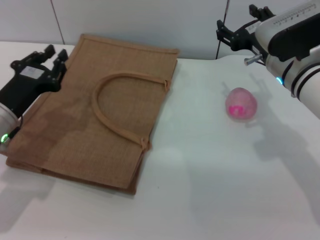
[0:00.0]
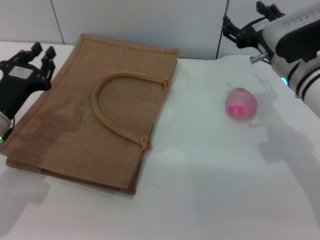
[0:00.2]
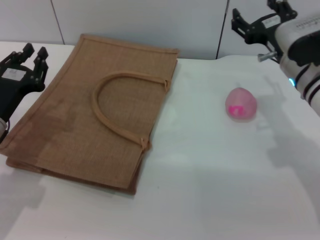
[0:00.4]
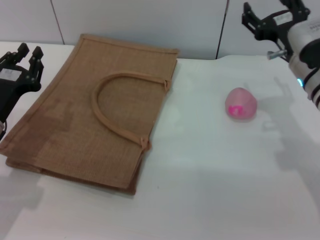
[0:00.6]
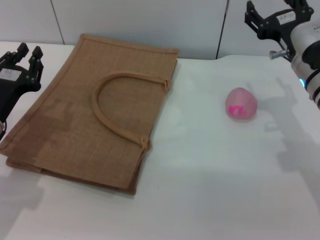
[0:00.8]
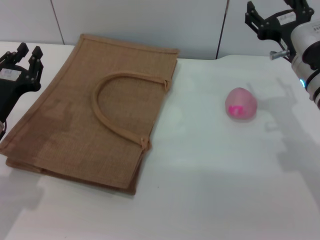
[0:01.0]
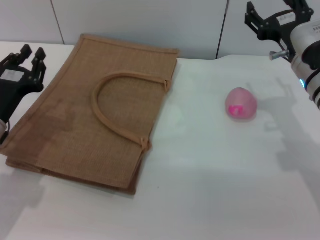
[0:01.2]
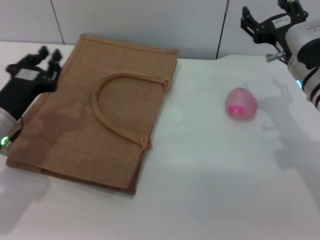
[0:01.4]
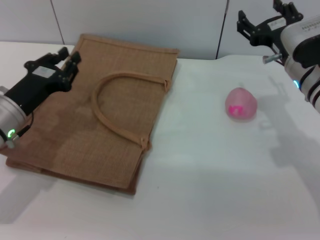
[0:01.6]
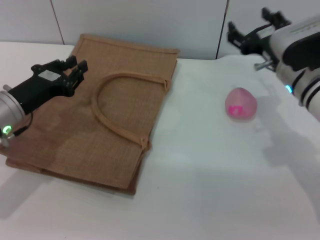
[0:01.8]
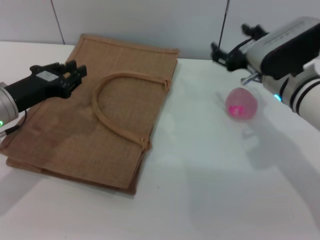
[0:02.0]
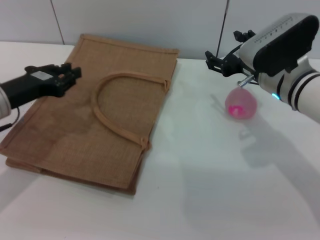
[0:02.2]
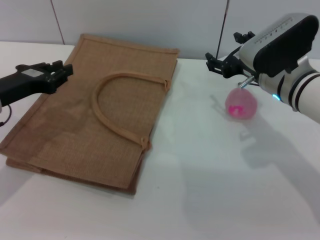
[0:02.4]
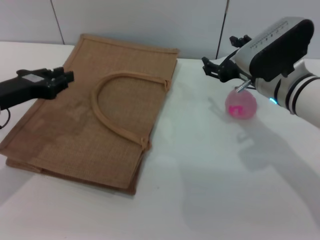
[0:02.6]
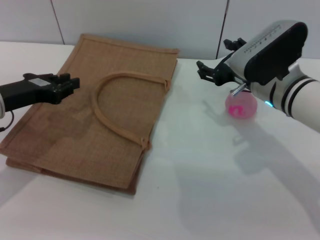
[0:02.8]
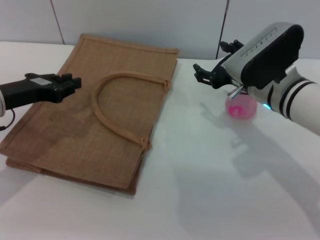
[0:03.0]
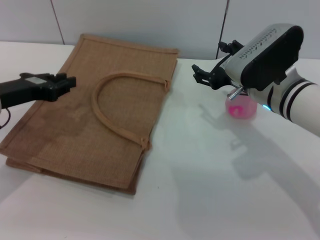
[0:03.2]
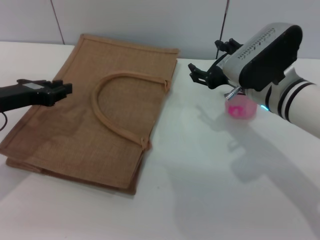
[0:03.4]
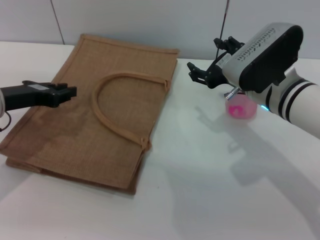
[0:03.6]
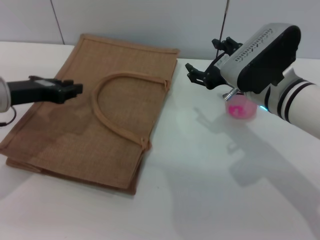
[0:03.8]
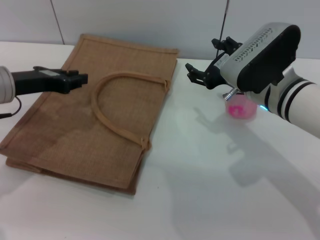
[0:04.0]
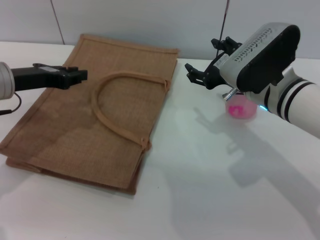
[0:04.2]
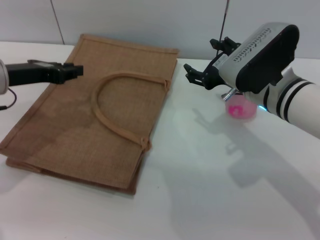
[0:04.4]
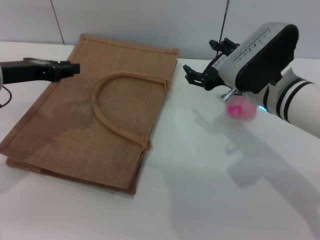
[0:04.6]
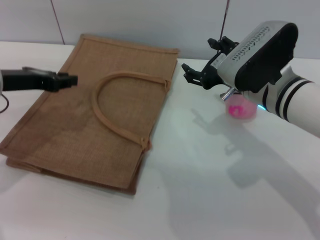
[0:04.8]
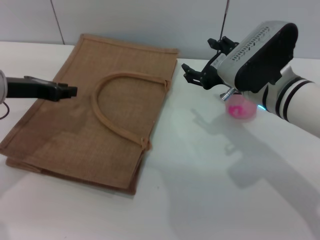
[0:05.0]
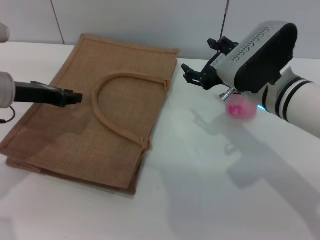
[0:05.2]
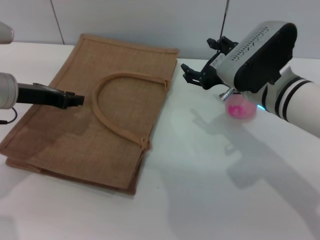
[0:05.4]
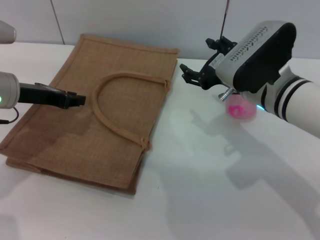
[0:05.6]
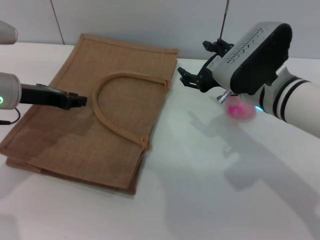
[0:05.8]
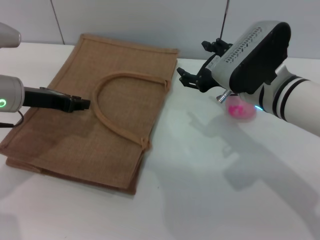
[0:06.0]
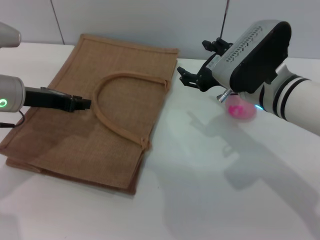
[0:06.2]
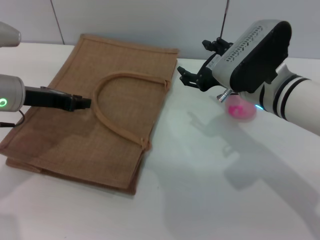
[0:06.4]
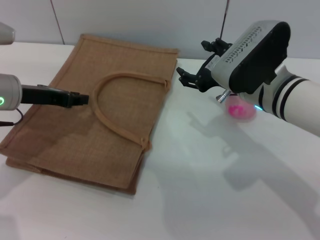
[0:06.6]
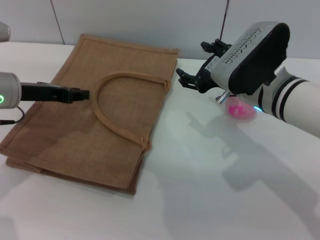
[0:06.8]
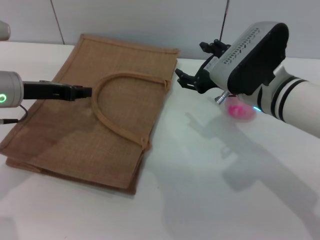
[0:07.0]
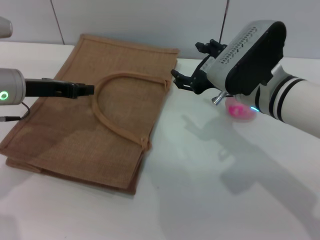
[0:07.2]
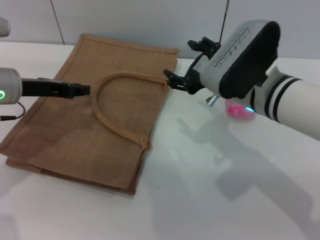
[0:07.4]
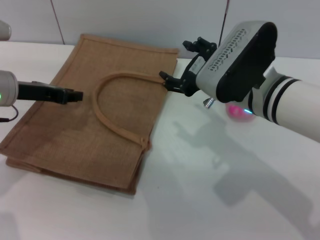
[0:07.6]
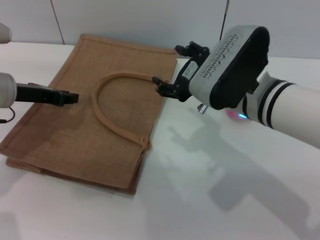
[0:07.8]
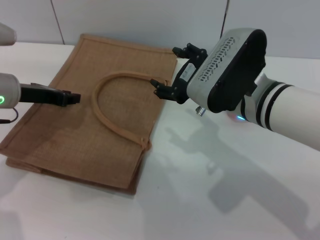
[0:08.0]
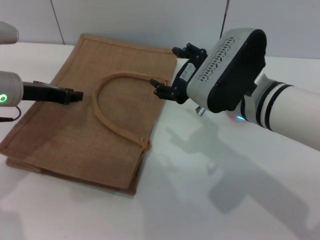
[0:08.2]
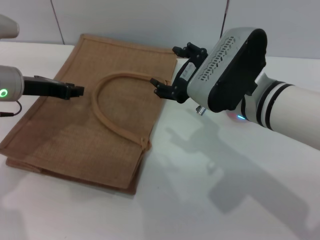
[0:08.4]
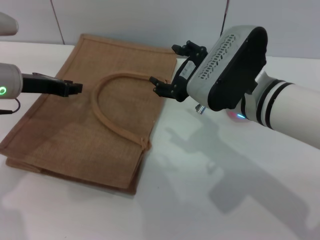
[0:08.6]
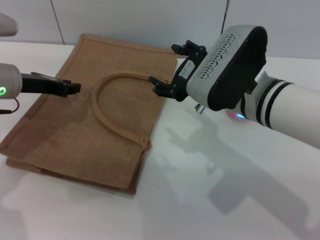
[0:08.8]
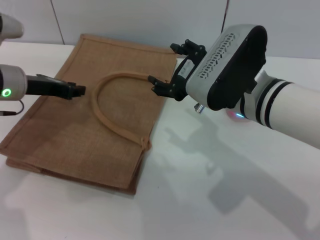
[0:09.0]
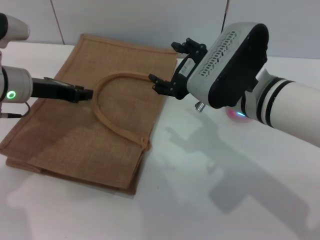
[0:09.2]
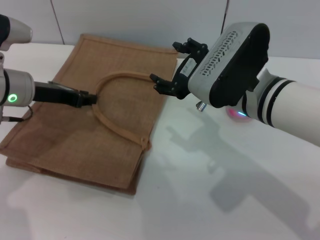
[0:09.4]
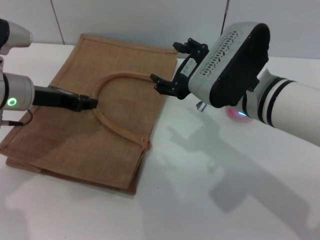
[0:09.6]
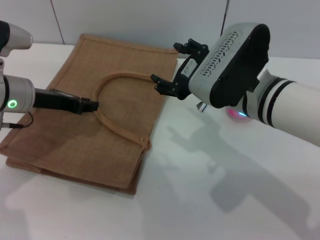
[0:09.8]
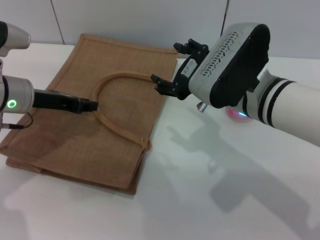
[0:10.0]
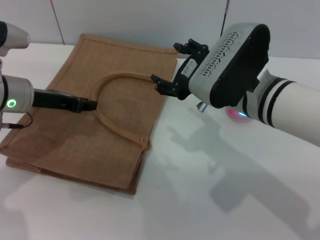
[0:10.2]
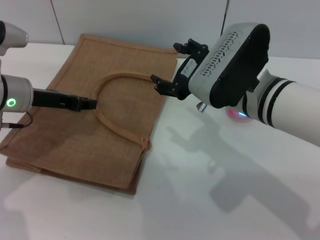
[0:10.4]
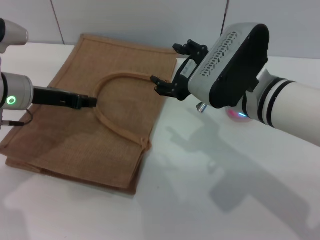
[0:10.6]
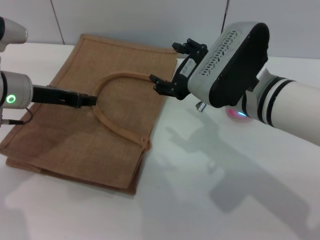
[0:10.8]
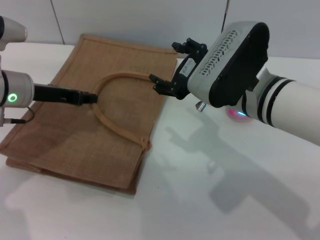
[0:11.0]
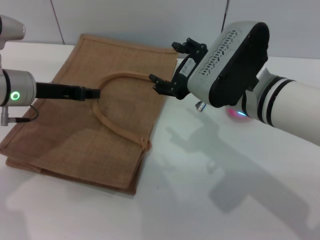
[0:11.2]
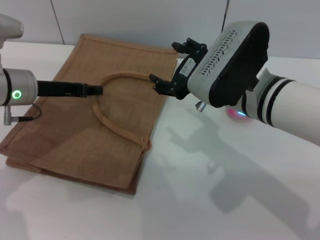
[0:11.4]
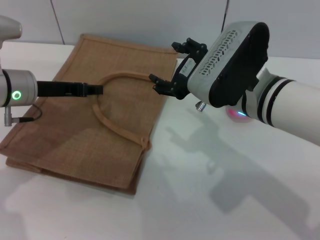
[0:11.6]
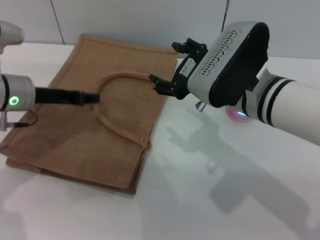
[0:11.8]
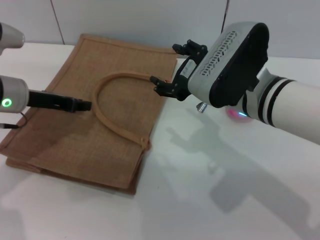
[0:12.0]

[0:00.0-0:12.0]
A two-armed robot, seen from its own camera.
Task of the whole recording: pick up the peach from the table and place it in the brown handbag.
0:00.0 to 0:01.6: The grippers move only a little.
0:01.6 to 0:03.0: The left gripper changes place by roughly 5 cm.
0:03.0 to 0:04.4: There are only small adjustments of the grippers.
0:04.4 to 0:12.0: There are only small adjustments of the grippers.

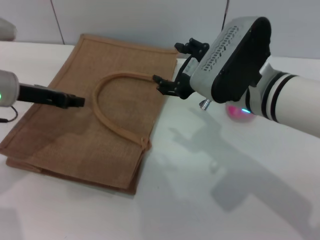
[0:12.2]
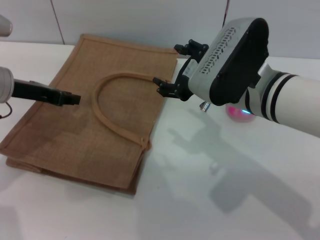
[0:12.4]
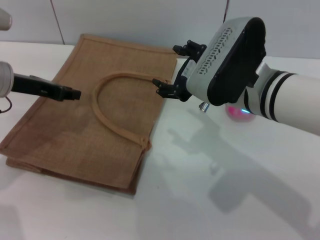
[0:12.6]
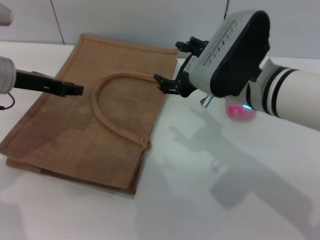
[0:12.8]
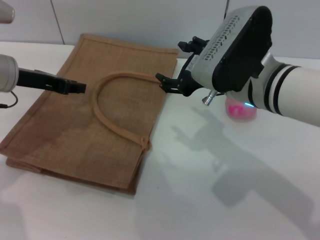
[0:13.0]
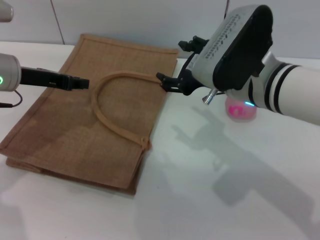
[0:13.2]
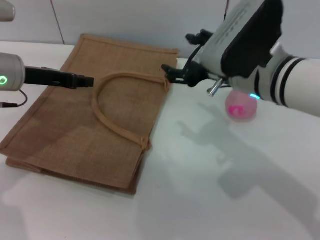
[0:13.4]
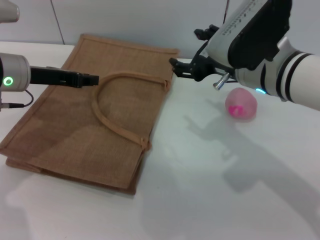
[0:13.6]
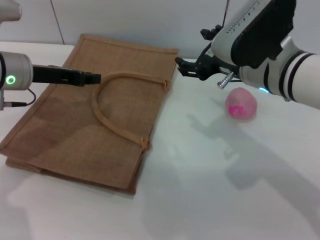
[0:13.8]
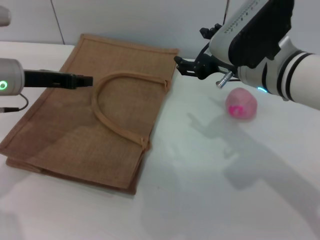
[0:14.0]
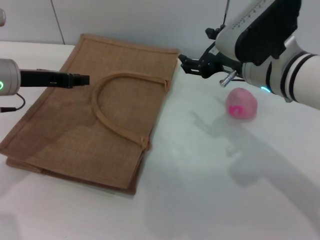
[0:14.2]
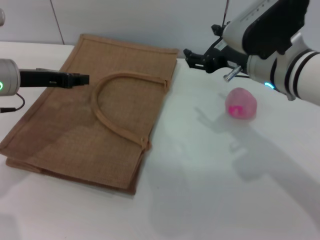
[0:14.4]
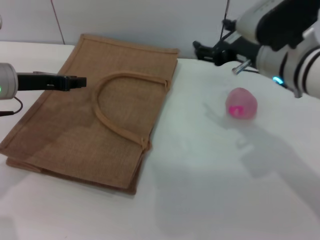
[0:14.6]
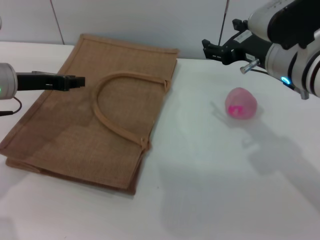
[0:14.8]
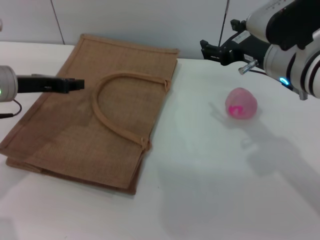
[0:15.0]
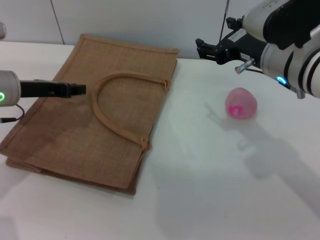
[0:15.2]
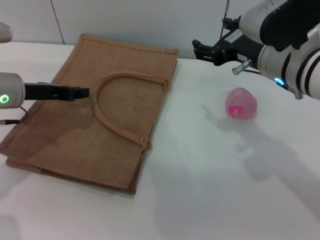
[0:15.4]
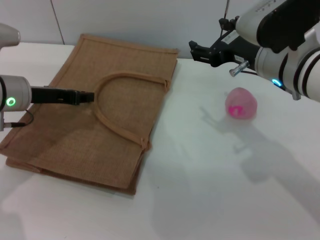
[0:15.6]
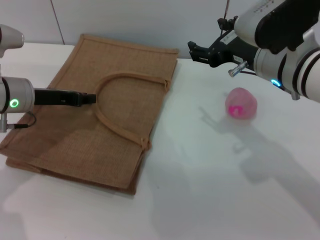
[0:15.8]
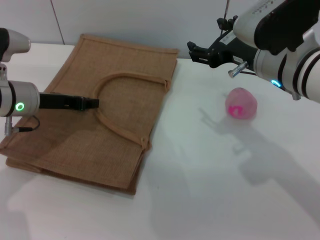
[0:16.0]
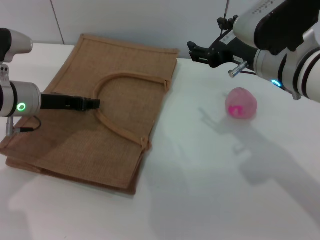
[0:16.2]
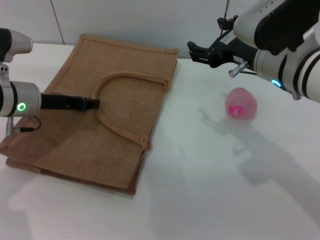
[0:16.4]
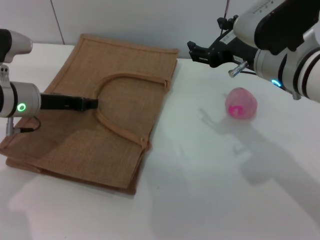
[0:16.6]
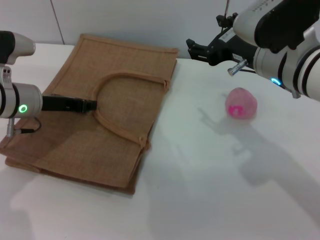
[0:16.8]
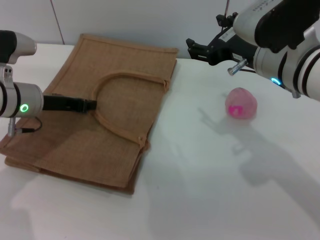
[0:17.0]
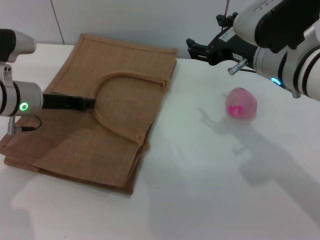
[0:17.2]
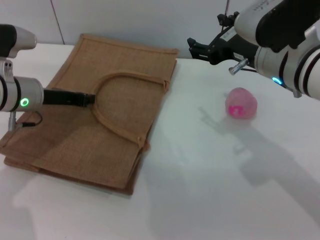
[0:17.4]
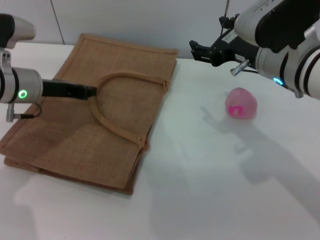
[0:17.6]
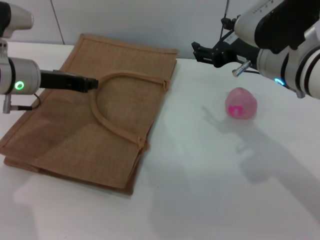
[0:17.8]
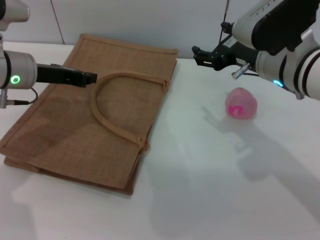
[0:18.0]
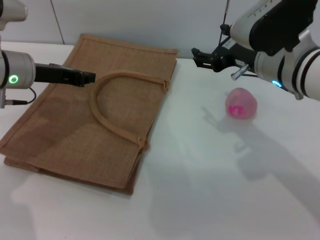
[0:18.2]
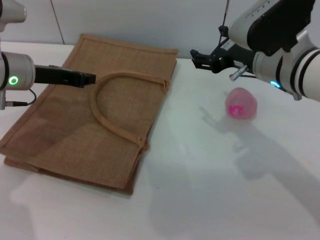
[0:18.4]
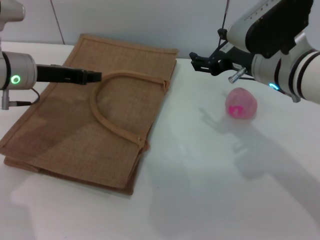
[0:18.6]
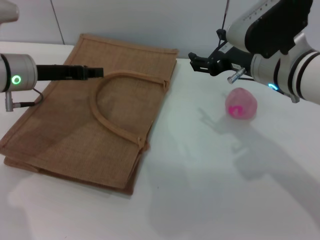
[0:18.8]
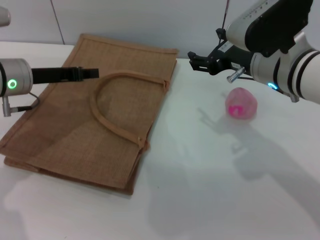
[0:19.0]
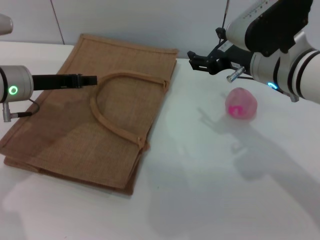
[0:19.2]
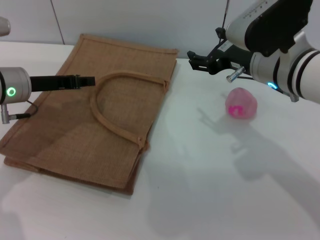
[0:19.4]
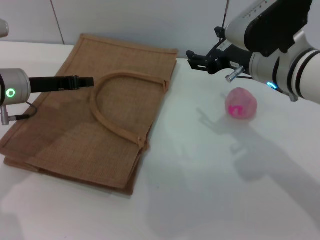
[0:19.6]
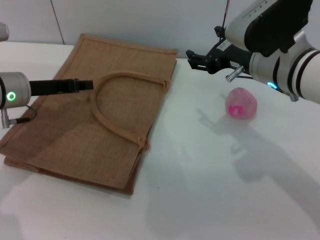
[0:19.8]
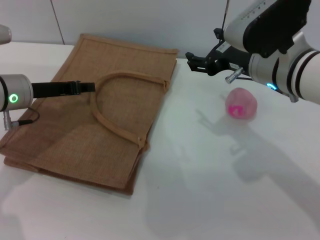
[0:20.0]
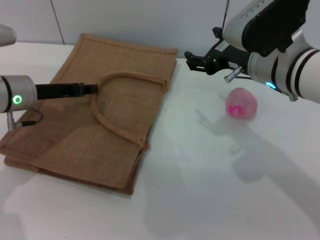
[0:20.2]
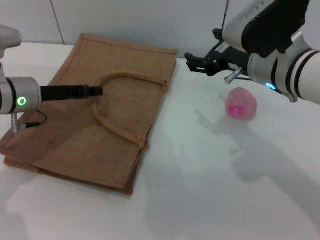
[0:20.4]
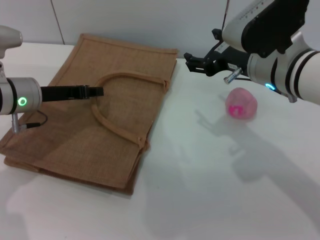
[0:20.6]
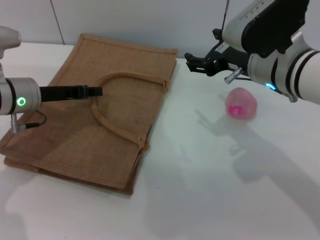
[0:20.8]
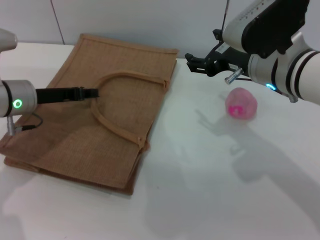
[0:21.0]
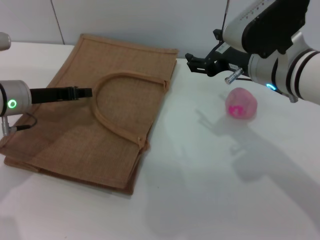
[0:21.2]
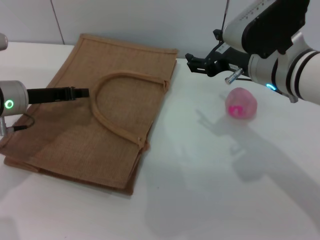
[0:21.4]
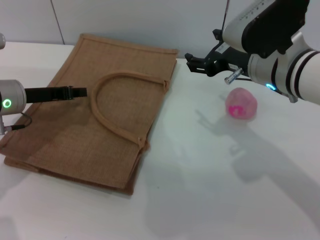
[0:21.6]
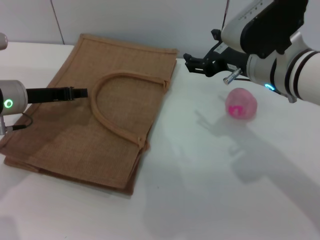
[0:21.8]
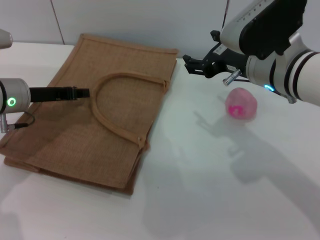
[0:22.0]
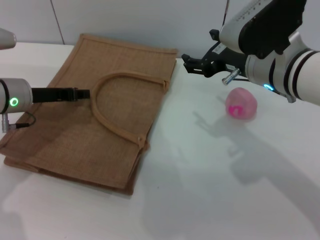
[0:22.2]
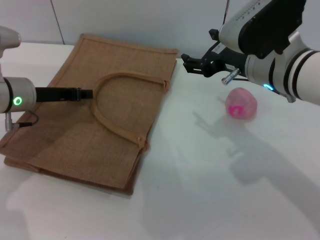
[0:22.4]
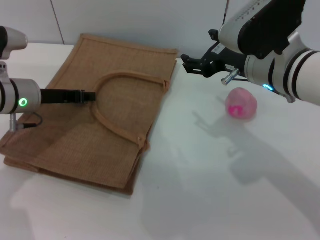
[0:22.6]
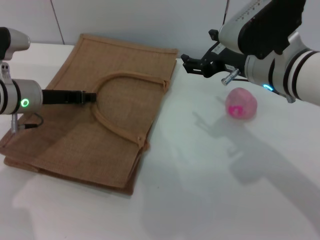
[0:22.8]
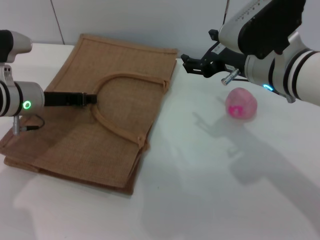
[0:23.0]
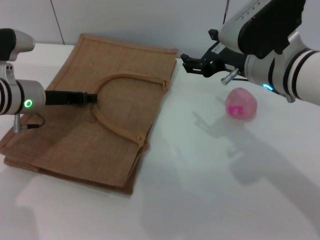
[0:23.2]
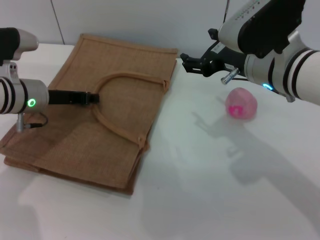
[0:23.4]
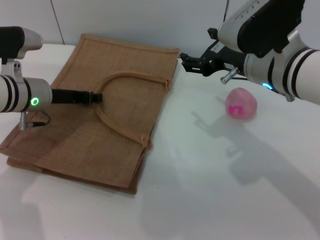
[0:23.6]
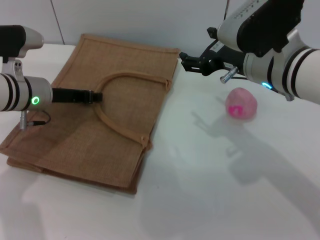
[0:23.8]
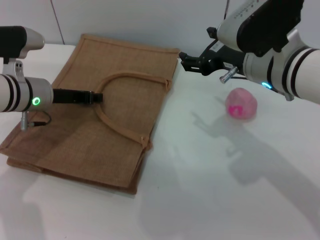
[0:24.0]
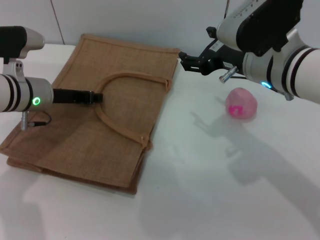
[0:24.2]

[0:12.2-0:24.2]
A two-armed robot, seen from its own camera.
Task of the whole recording: pick up the peach from the table and place it in the brown handbag.
0:12.2 to 0:13.8: The grippers stay close to where they were, moving slightly.
0:13.8 to 0:18.2: The grippers make only small movements.
0:18.2 to 0:19.8: The left gripper opens its fingers.
0:19.8 to 0:24.2: The grippers move only a little.
